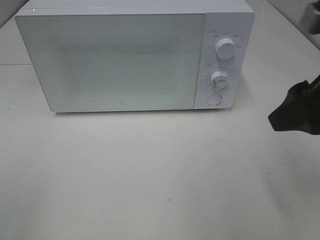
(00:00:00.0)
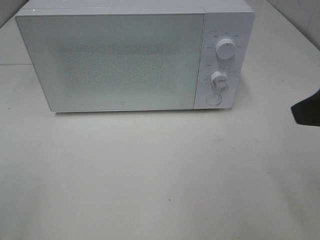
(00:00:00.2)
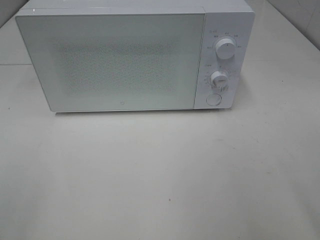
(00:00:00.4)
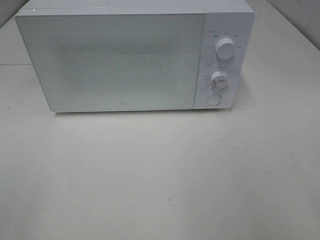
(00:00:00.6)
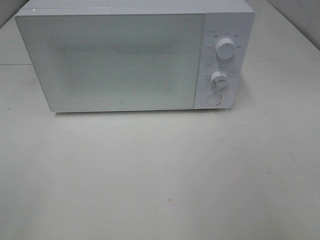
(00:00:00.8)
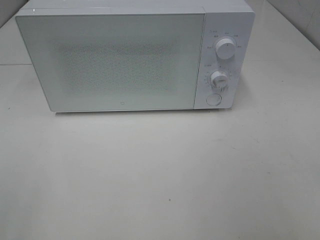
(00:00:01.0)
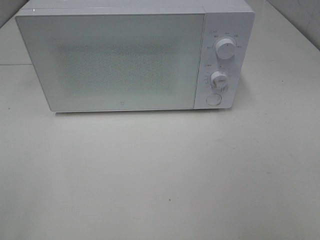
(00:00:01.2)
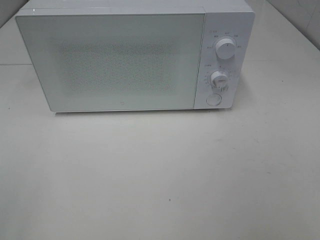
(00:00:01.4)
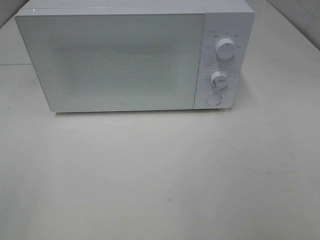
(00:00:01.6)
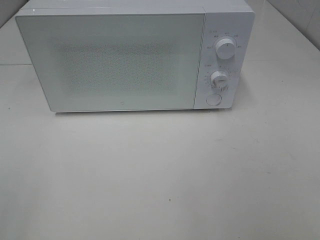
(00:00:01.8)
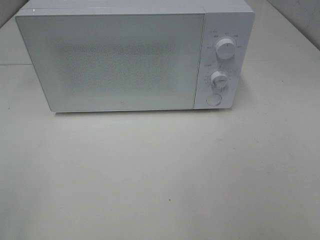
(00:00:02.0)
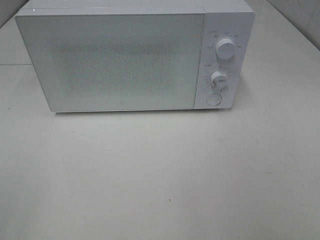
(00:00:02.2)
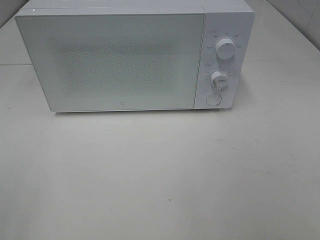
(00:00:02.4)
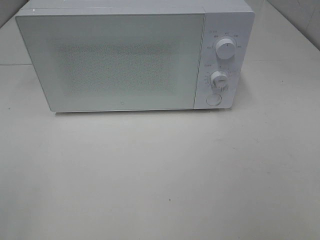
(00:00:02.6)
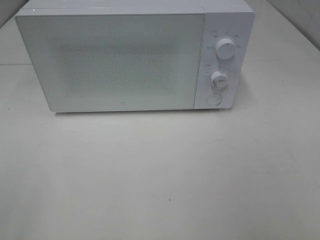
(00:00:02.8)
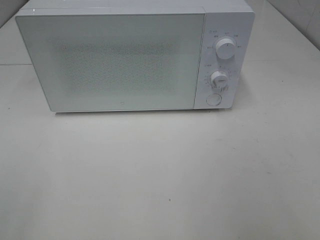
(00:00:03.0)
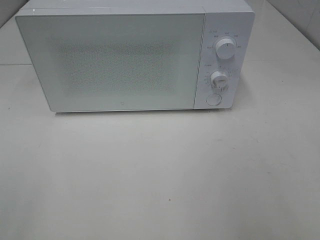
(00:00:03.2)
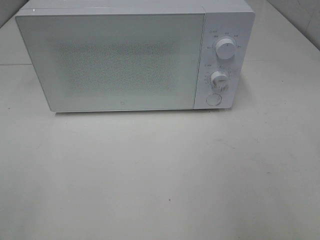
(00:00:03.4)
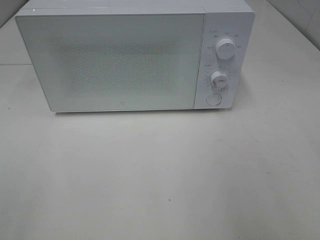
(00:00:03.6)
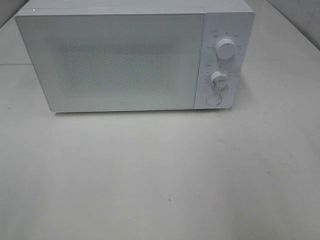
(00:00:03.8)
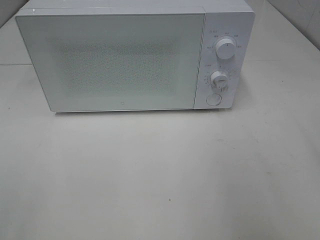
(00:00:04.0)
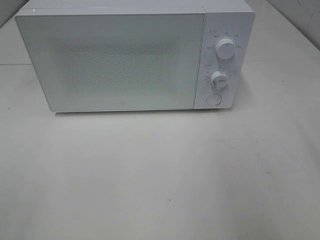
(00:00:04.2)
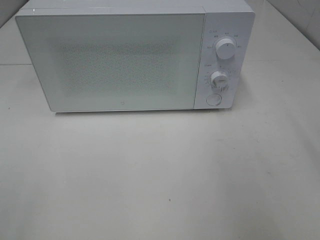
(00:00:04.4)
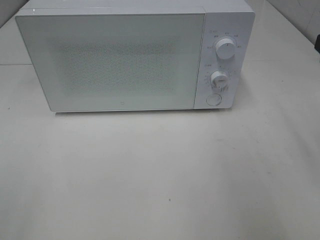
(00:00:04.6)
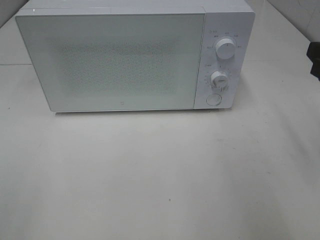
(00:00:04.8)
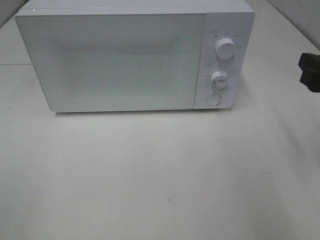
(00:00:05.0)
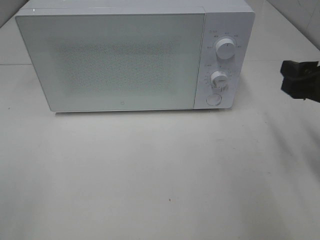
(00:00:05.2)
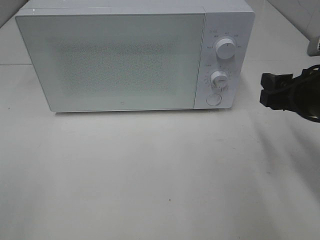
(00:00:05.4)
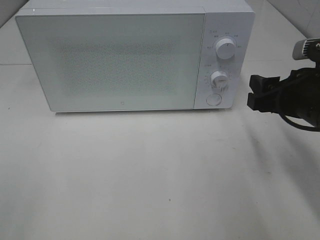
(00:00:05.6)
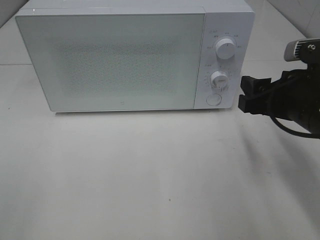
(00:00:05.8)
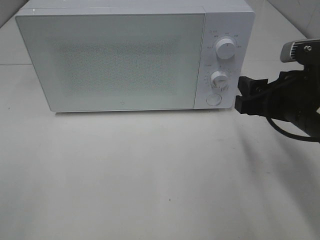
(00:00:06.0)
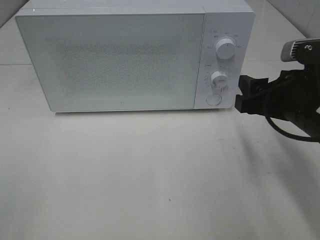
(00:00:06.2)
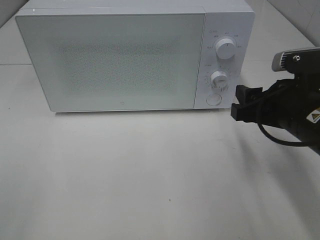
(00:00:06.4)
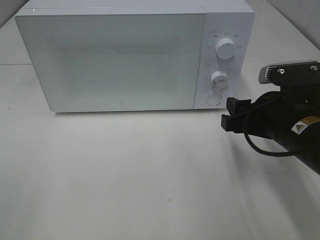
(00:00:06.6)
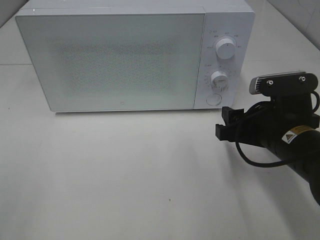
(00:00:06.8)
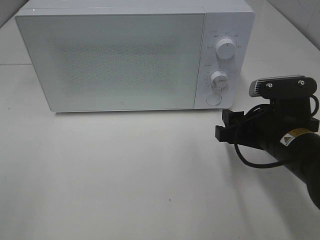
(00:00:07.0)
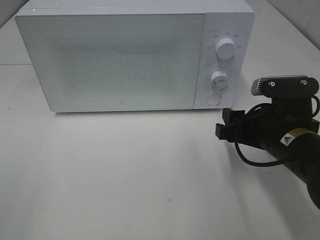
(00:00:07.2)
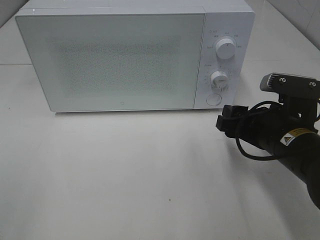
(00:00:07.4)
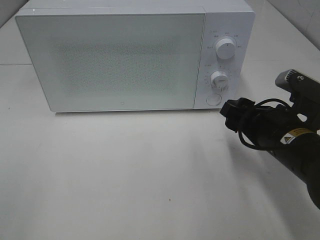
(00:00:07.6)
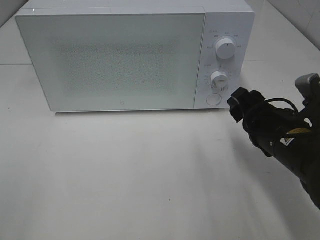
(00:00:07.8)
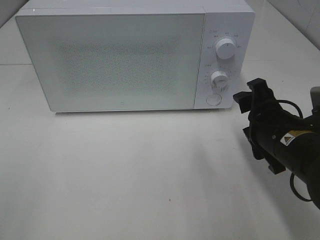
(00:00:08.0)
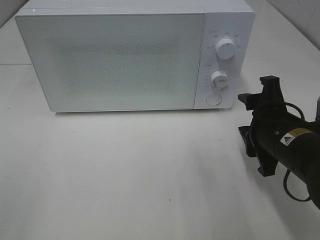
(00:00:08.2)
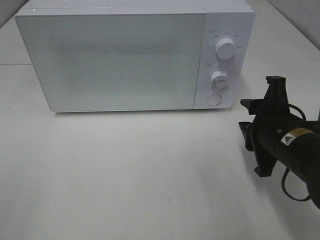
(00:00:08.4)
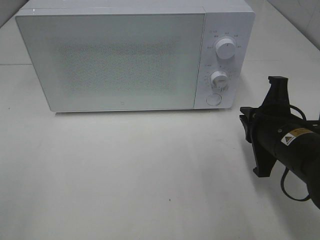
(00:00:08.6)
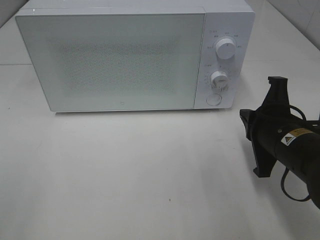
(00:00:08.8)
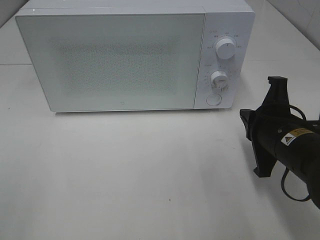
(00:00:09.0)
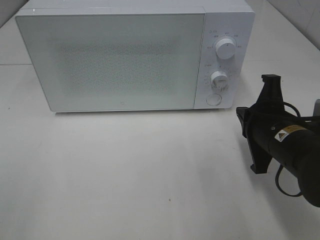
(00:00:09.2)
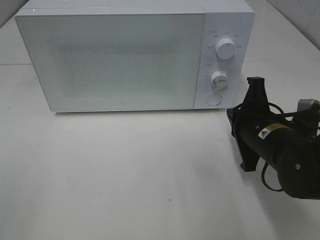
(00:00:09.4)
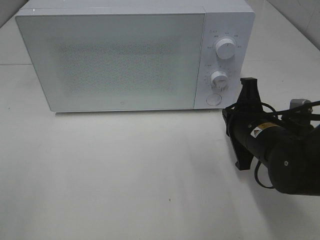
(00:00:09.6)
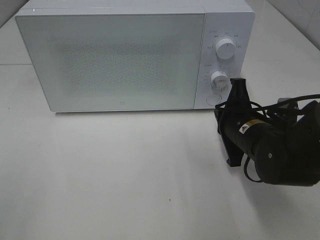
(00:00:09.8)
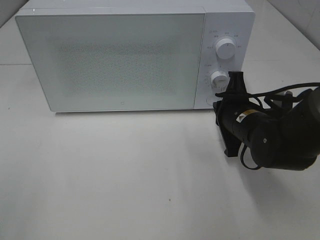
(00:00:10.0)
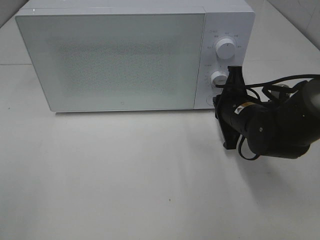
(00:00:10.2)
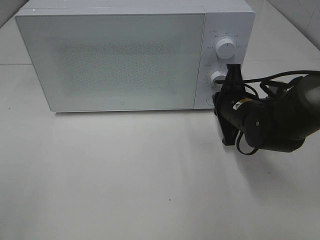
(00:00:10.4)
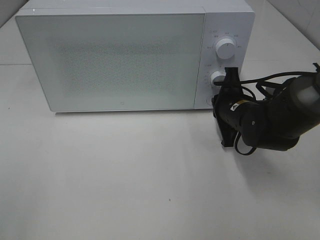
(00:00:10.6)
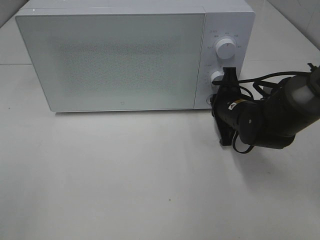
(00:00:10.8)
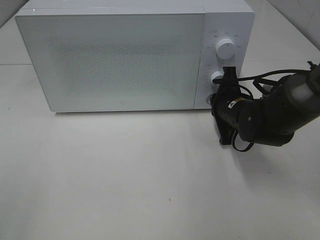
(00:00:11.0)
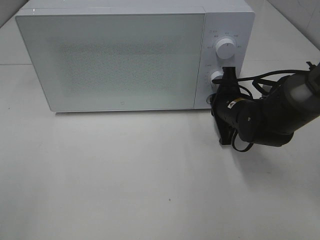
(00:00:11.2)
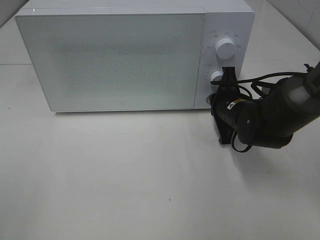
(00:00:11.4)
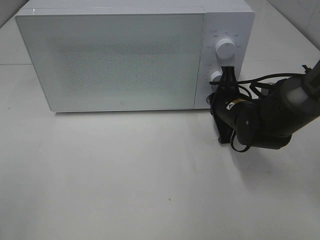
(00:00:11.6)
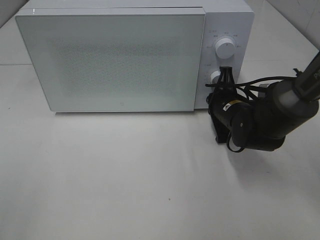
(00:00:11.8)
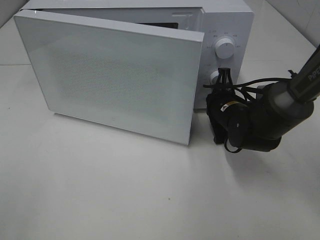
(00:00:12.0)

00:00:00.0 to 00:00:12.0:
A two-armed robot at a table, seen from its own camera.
Task of the whole recording: Heat Sandwich.
00:00:00.0 to 00:00:01.6: The right gripper travels backward and to the right by roughly 20 cm.
00:00:04.4 to 00:00:06.0: The right gripper moves downward and to the left, some 15 cm.
00:00:06.0 to 00:00:07.6: The right gripper is displaced downward by approximately 5 cm.
00:00:07.6 to 00:00:09.0: The right gripper closes.
00:00:09.0 to 00:00:10.4: The right gripper shifts about 10 cm forward.
00:00:10.4 to 00:00:12.0: The grippers make only small movements.

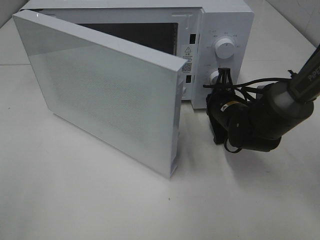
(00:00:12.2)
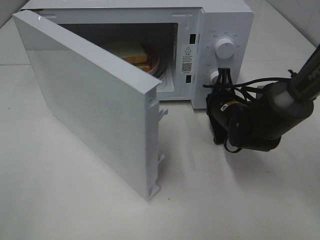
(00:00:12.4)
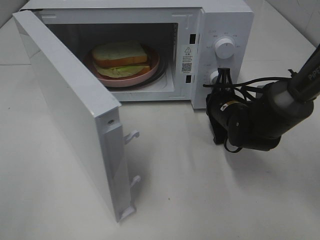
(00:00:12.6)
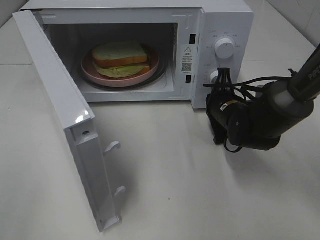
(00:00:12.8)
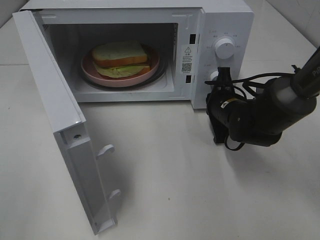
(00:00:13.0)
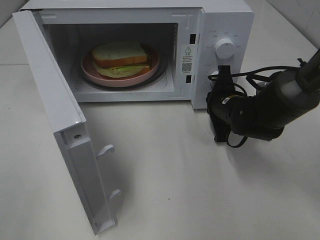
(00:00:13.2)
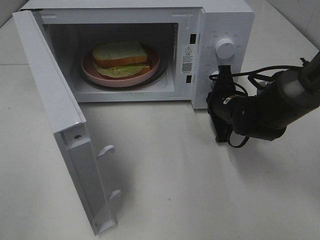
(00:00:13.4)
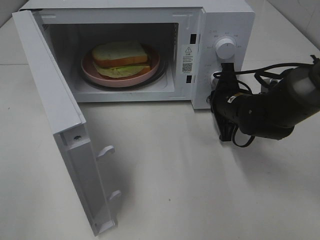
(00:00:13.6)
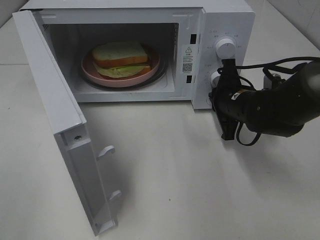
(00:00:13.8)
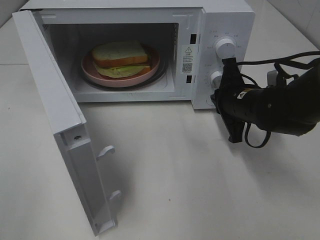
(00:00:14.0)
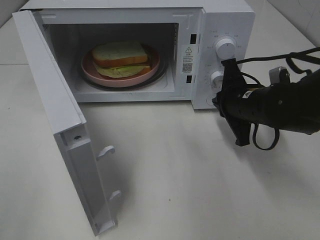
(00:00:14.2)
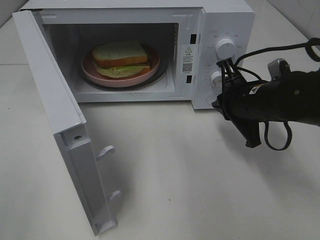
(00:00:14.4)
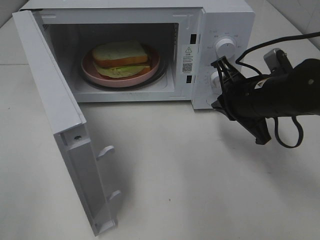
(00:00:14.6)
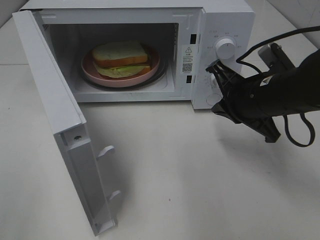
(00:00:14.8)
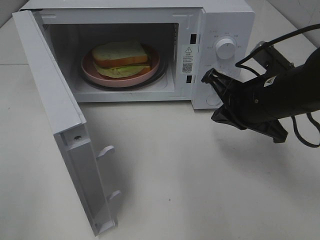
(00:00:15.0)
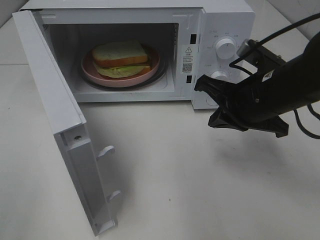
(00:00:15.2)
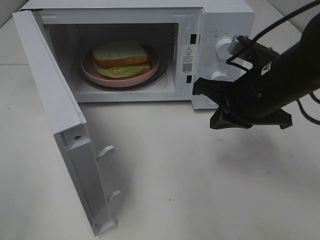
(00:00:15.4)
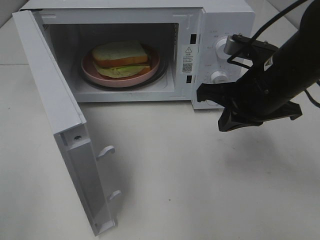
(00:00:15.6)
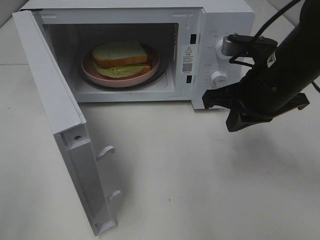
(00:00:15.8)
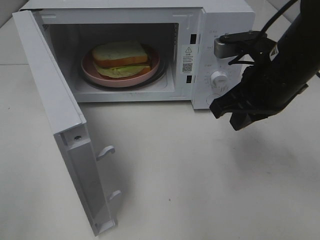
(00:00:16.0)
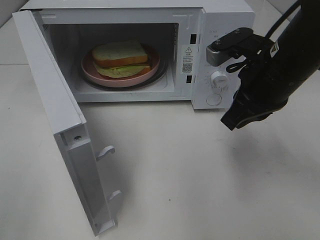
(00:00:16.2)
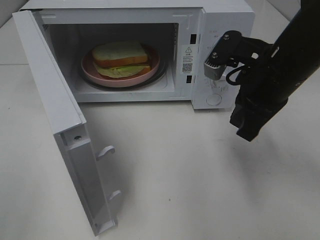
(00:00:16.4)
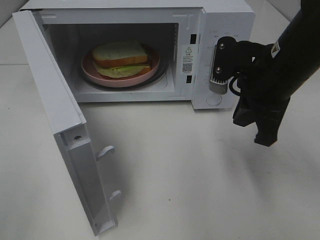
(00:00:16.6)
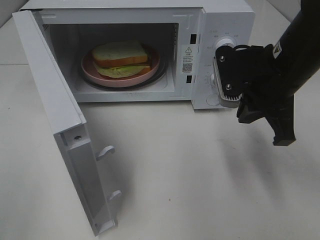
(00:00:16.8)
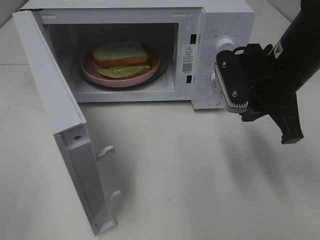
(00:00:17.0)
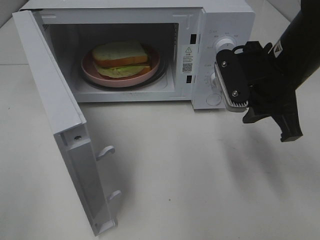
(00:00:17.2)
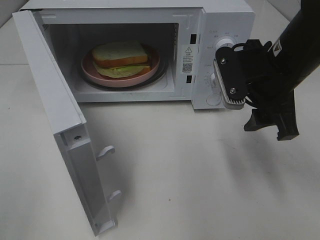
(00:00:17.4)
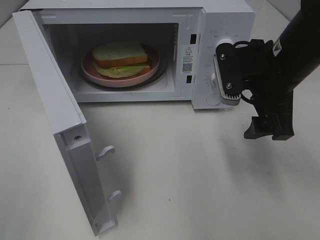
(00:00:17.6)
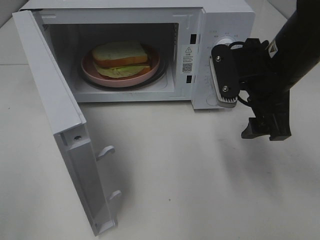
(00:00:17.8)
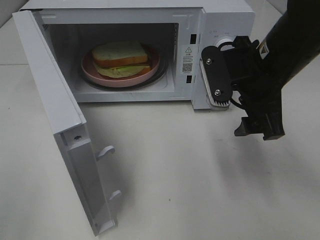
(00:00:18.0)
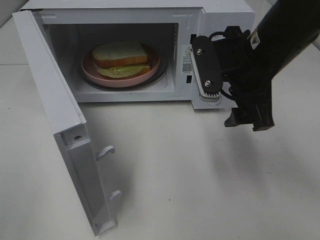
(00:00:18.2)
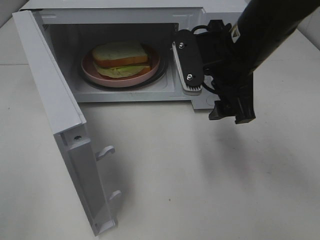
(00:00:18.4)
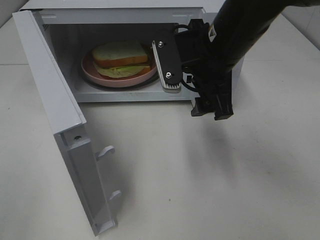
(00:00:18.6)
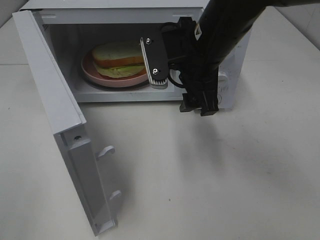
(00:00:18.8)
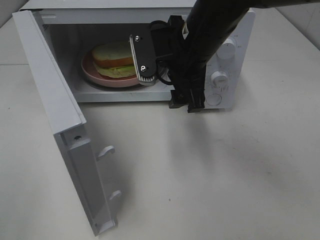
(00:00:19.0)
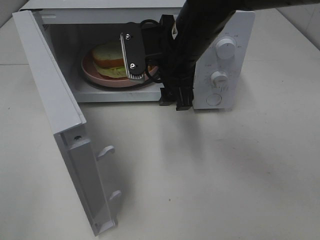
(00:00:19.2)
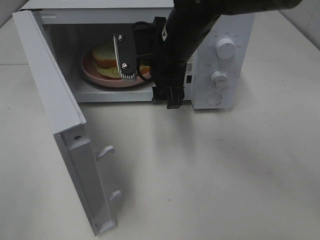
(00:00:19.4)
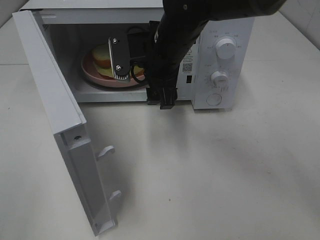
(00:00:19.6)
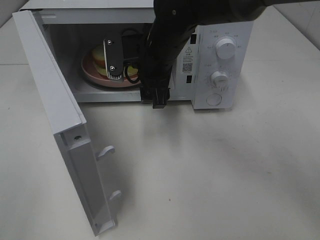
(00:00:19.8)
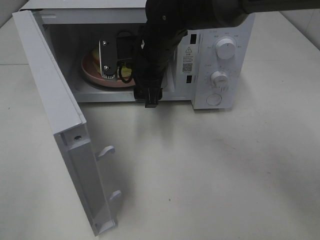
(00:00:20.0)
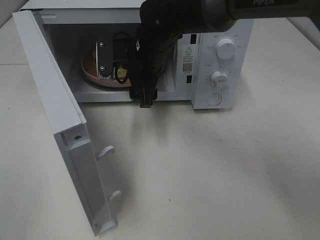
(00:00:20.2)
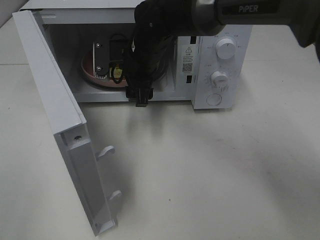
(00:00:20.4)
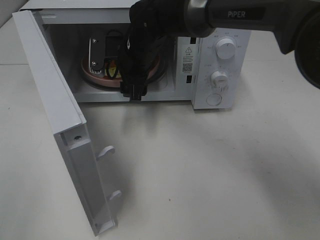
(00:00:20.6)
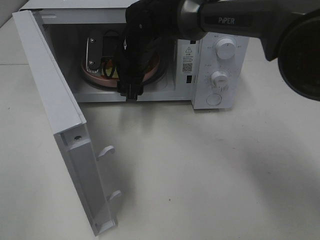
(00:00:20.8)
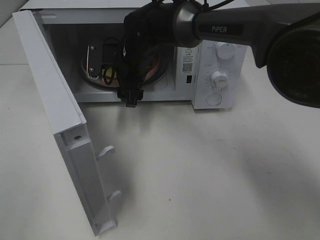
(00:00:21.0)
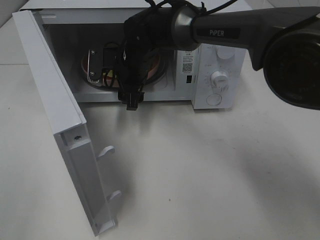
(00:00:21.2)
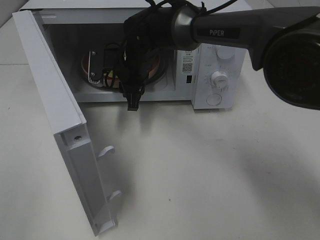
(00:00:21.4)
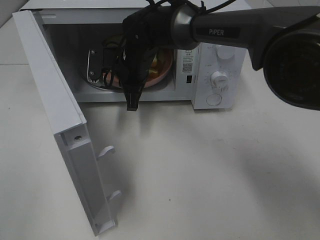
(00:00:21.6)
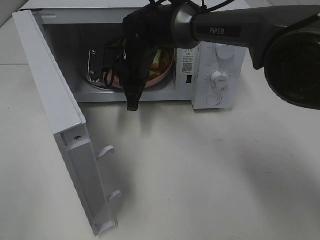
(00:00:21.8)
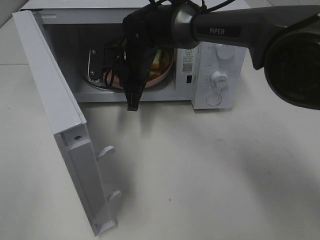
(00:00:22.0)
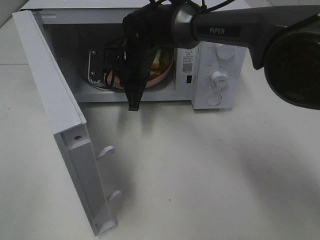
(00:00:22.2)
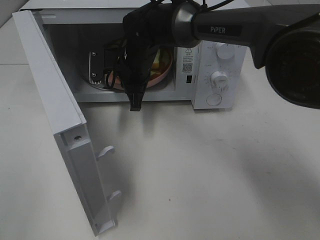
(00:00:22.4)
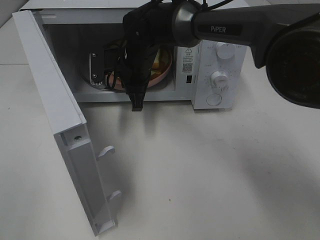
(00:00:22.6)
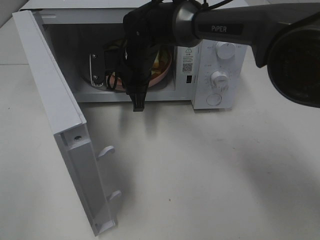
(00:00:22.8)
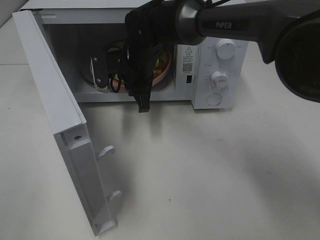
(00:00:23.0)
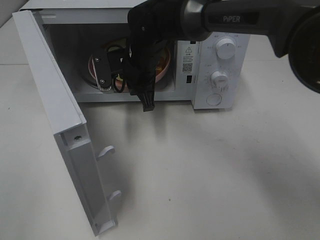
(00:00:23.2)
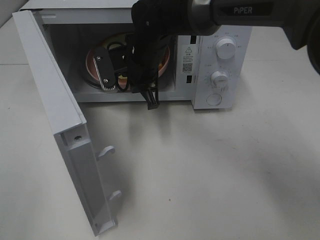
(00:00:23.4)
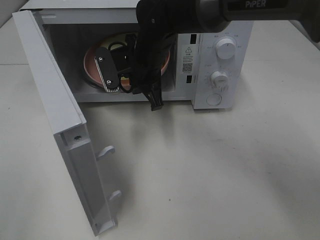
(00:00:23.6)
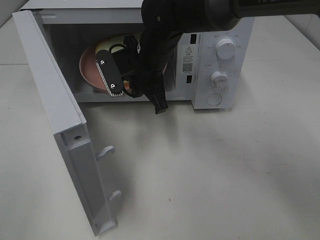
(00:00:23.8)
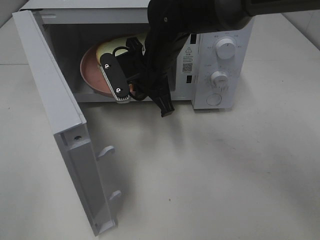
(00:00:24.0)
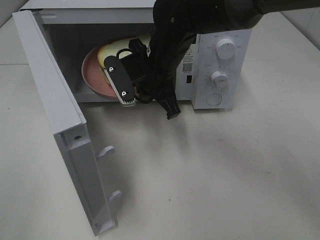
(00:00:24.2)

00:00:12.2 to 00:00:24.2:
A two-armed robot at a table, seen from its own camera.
Task of the whole recording: Heat Sandwich.
Step, 00:00:14.2 to 00:00:22.0: Right hand: grab the plate with the sandwich.
00:00:13.8 to 00:00:15.2: The right gripper goes roughly 10 cm upward and backward.
00:00:16.6 to 00:00:18.2: The right gripper opens up.
00:00:18.2 to 00:00:19.8: The right gripper travels to the left and forward by roughly 15 cm.
00:00:19.8 to 00:00:21.2: The right gripper is displaced forward and downward by about 10 cm.
00:00:21.2 to 00:00:22.6: The right gripper closes.
00:00:22.6 to 00:00:24.2: The right gripper travels backward by approximately 5 cm.
